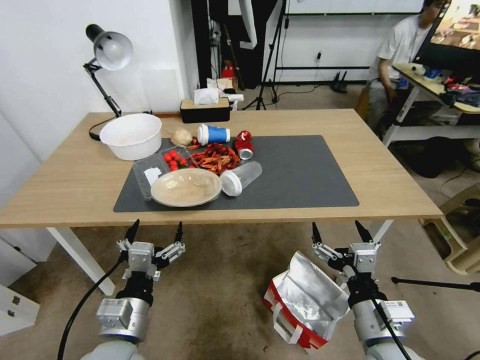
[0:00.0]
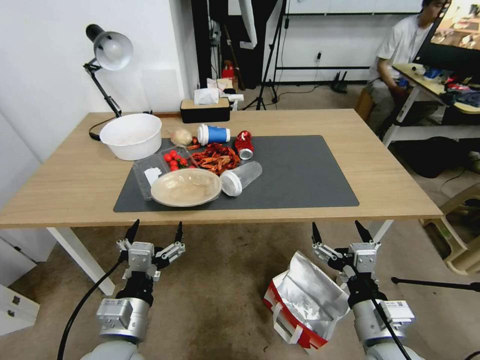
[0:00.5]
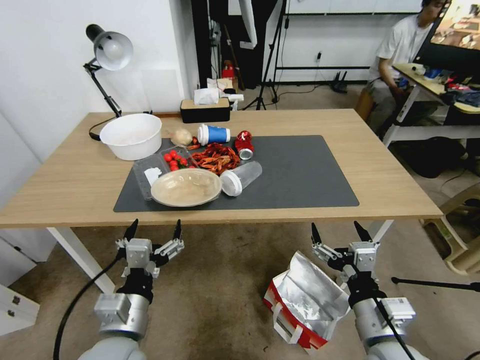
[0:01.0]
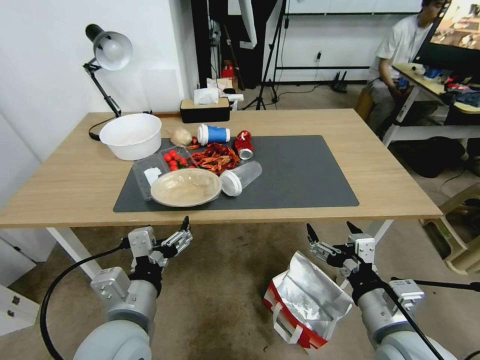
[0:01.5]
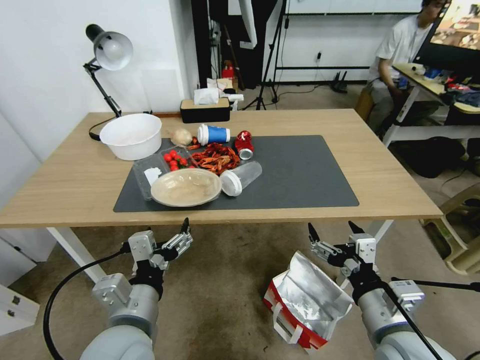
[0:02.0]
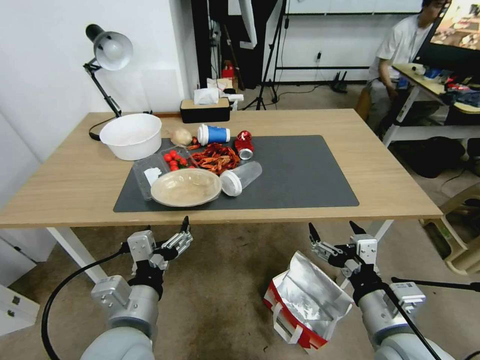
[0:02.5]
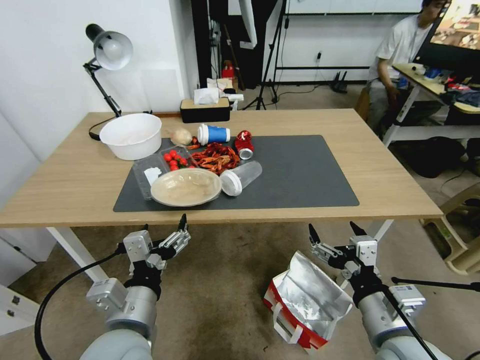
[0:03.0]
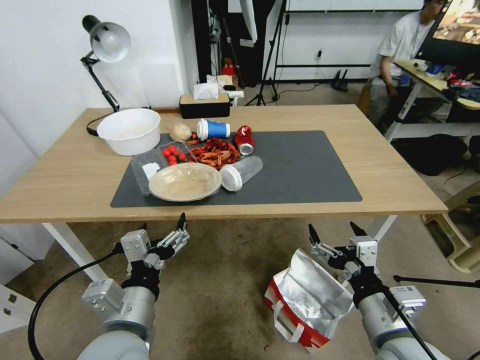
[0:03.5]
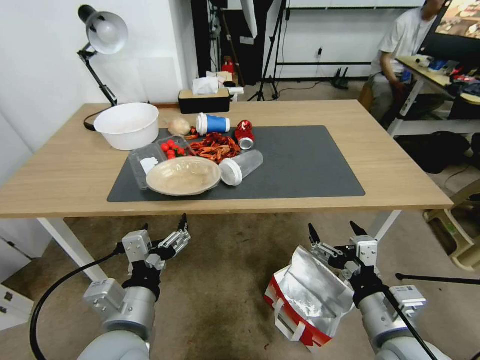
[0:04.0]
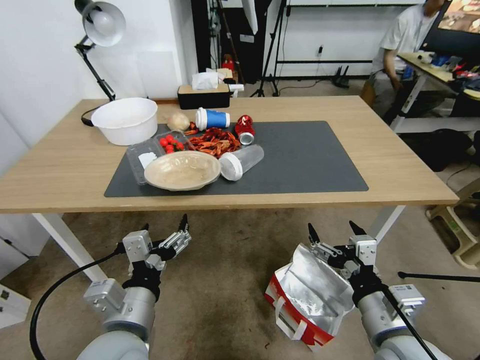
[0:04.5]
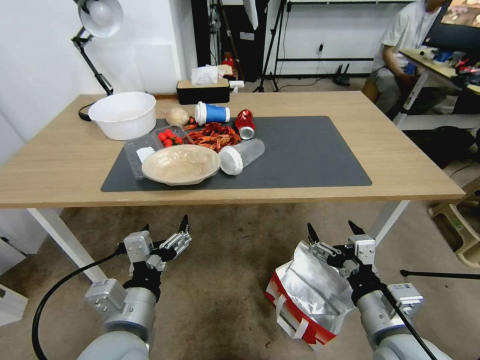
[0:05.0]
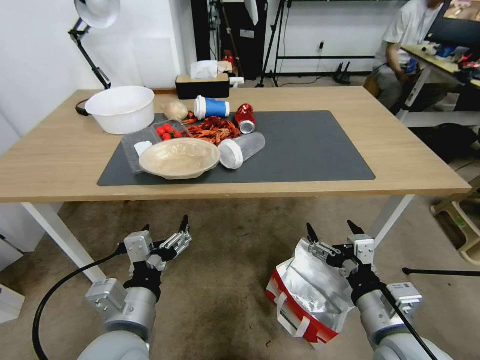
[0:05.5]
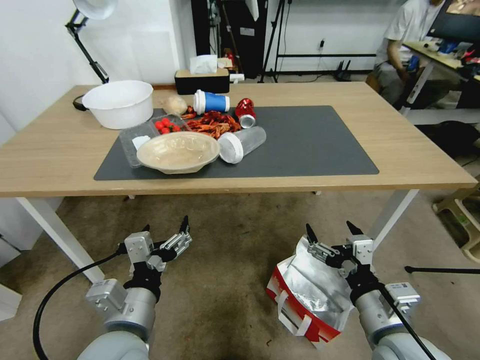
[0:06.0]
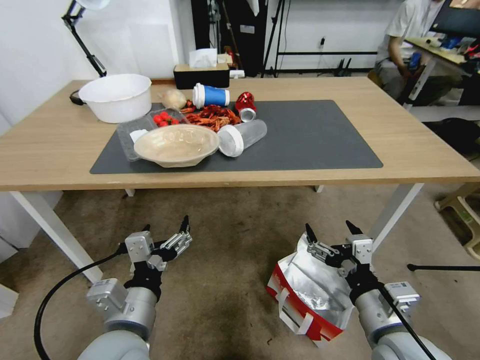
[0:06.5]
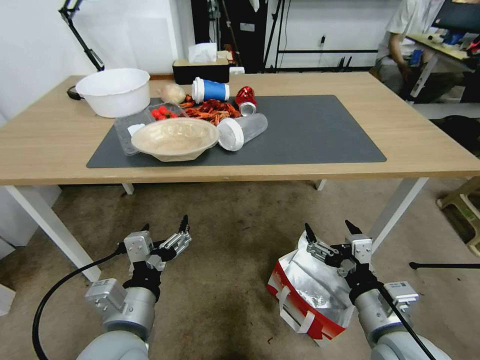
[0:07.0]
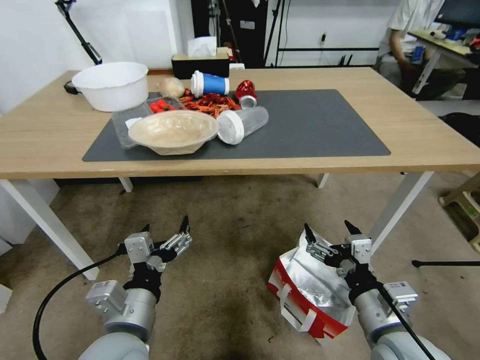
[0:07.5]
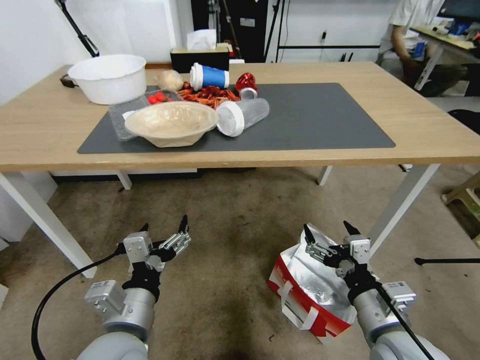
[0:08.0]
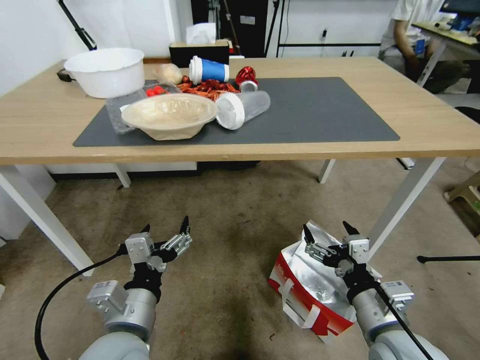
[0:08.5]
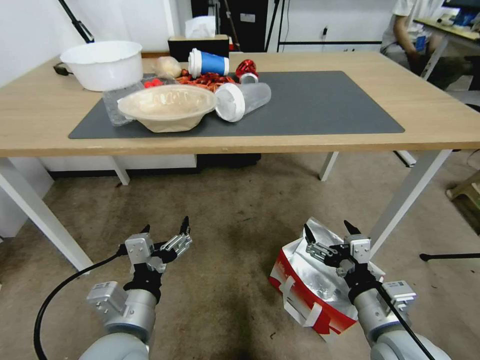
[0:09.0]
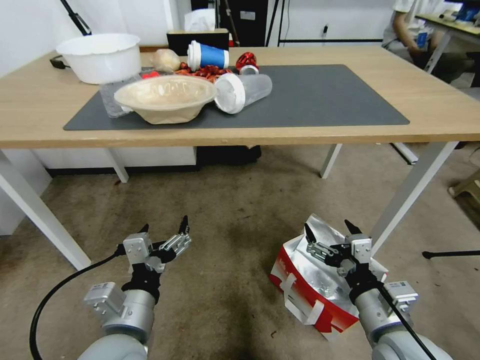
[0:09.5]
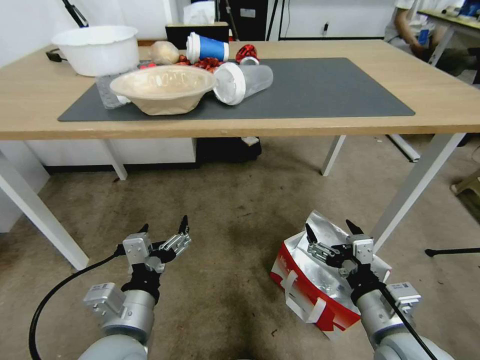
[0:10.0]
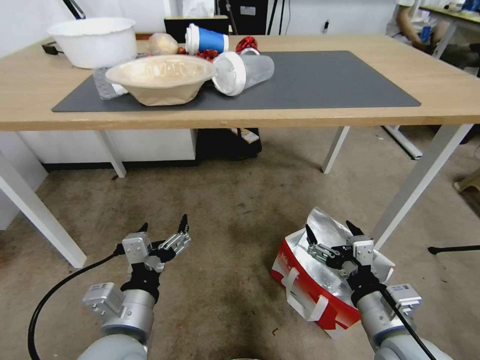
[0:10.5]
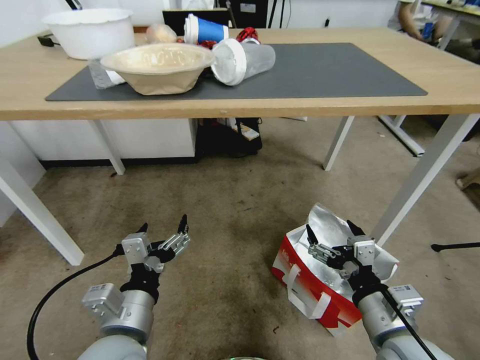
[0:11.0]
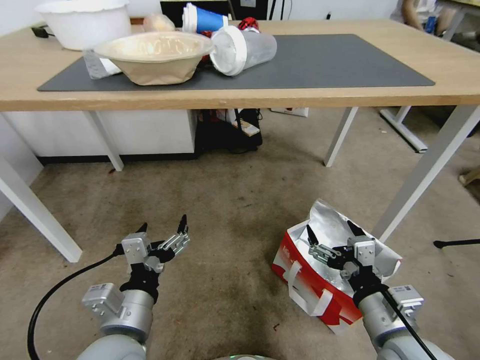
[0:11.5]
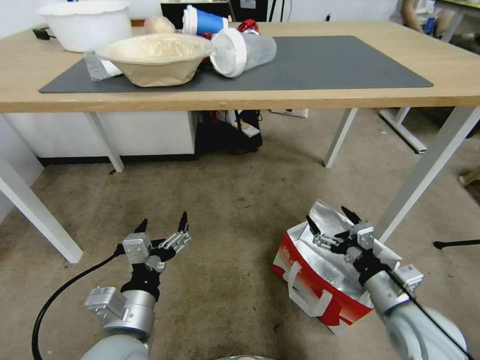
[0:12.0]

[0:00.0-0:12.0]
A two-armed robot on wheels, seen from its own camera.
Task of the whole recording: Pick up the food delivery bag from the floor and place it on the table.
0:10.0 to 0:12.0: The right gripper travels to the right by approximately 5 cm.

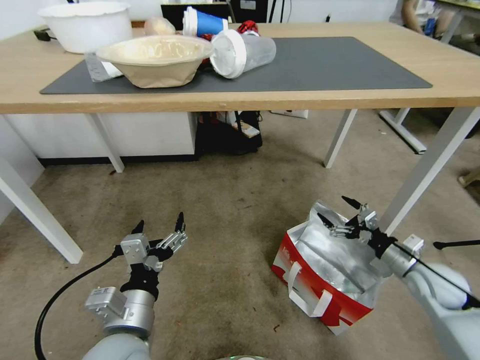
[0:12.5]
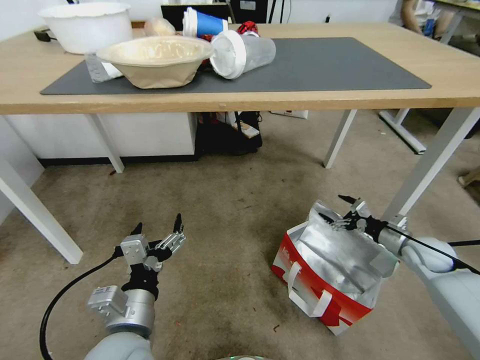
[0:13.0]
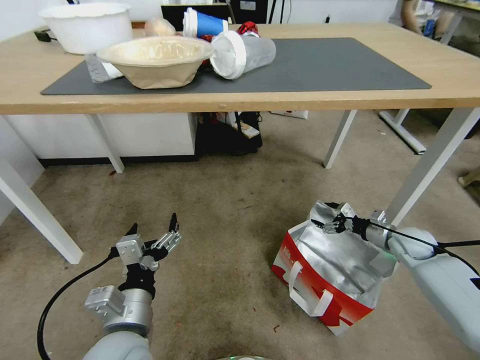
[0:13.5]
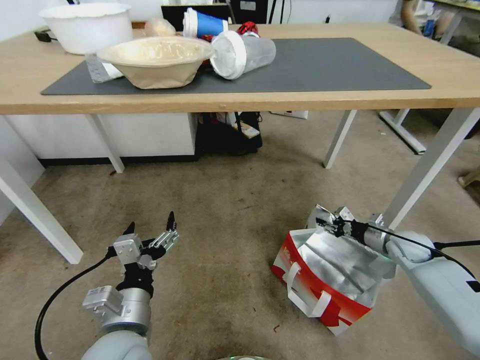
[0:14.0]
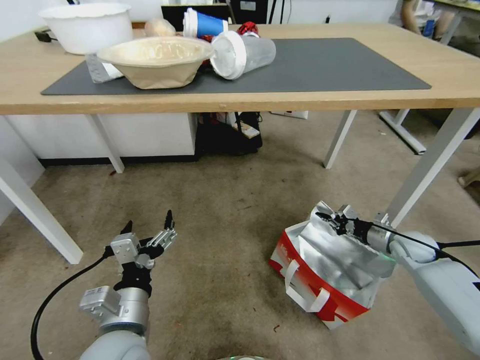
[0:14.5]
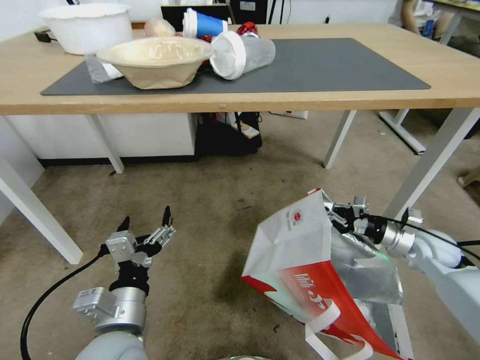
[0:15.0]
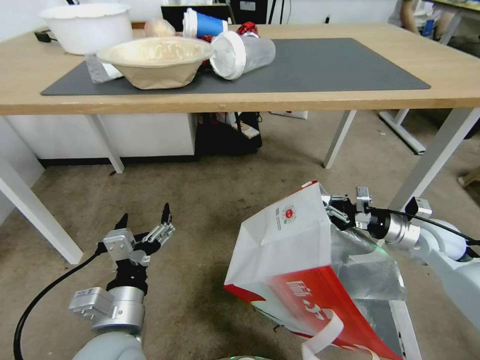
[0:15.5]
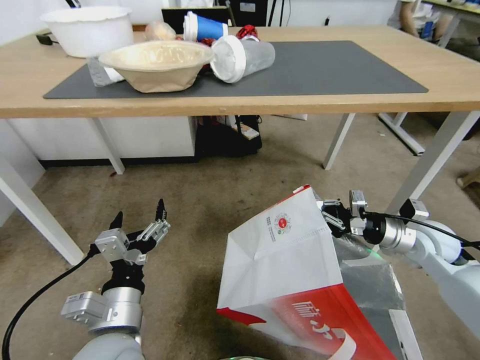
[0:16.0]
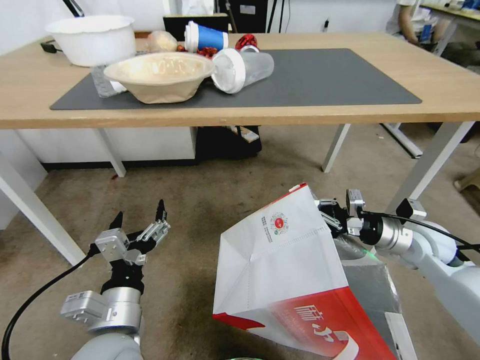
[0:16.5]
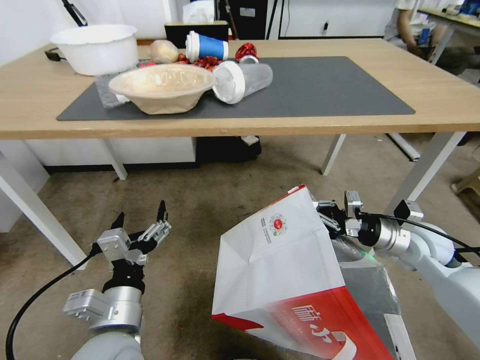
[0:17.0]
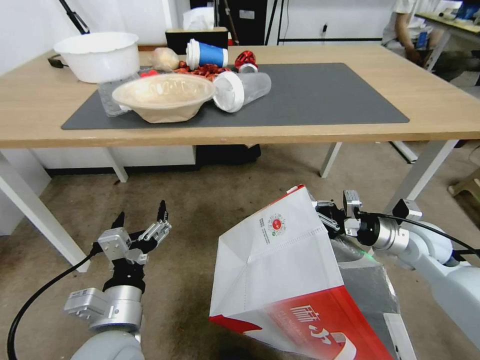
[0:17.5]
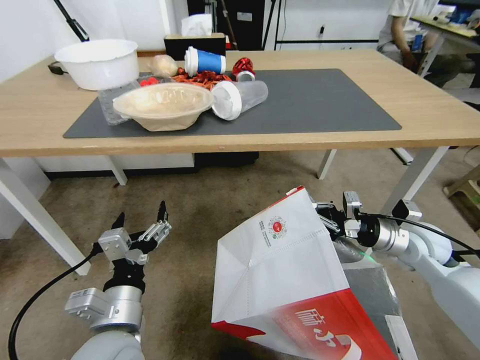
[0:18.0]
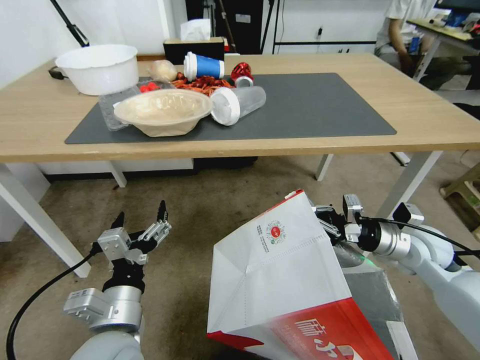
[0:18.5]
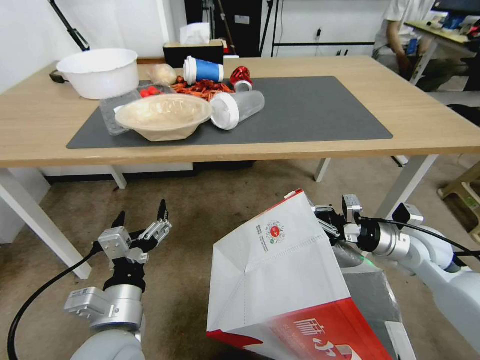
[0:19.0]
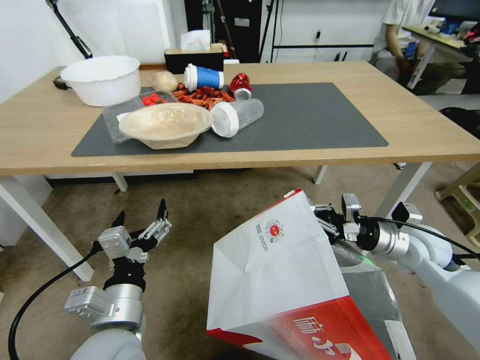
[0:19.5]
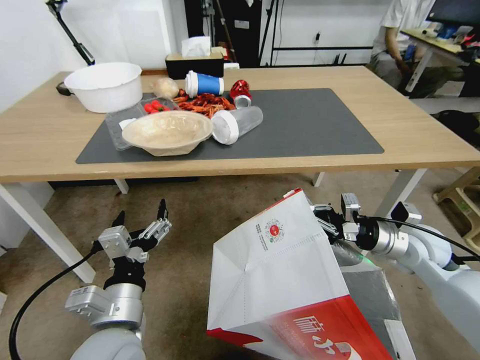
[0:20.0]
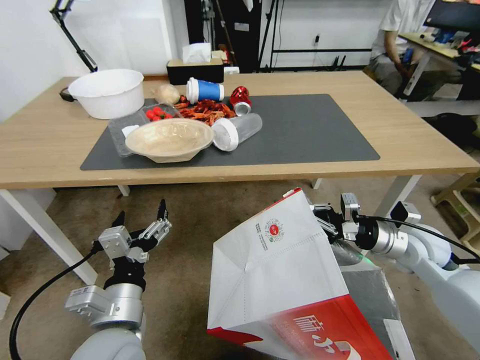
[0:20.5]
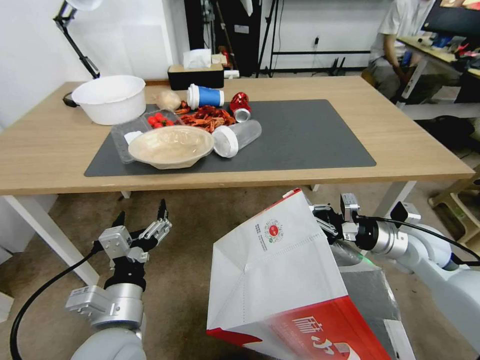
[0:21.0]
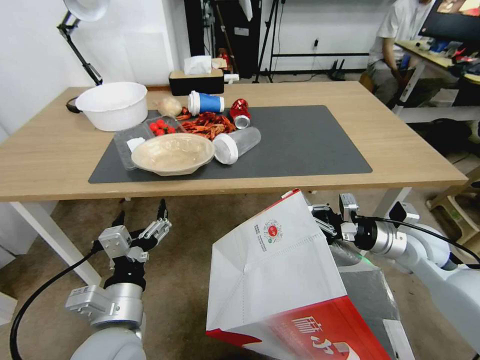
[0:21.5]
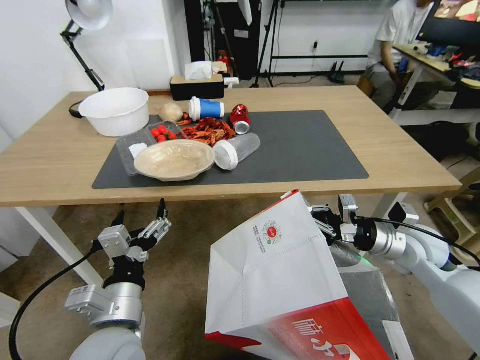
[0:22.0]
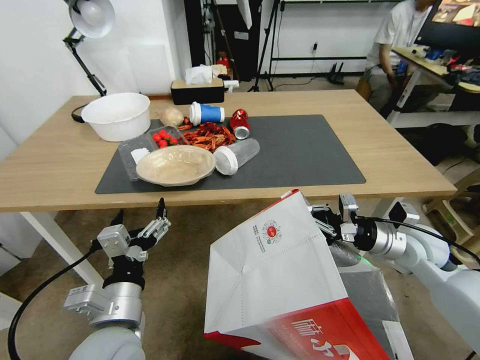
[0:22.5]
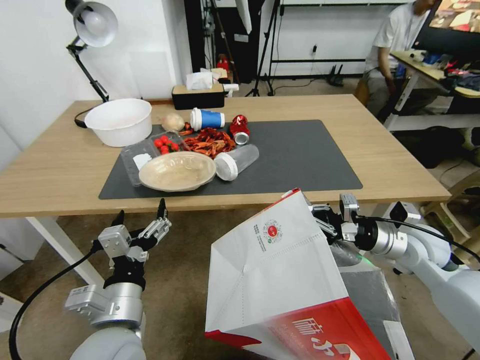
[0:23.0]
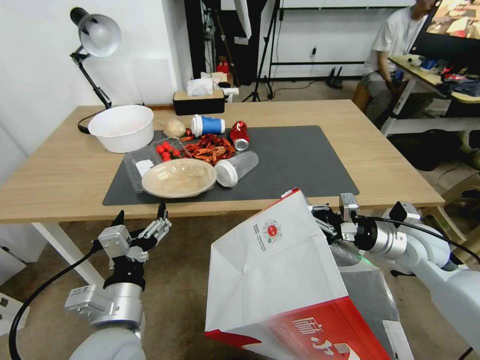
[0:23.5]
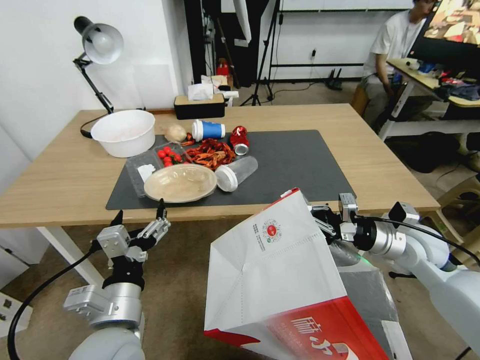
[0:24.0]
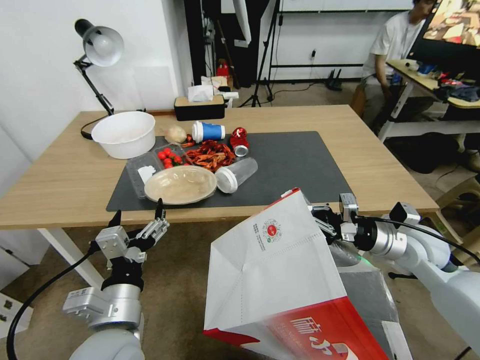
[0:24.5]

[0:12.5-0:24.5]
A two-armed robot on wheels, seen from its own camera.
Task of the whole recording: Pick up the food delivery bag from the floor and place it on the table.
0:12.5 to 0:14.5: The right gripper goes some 10 cm forward, and closes up.
0:14.5 to 0:16.5: The right gripper is displaced upward and to the left by about 15 cm.

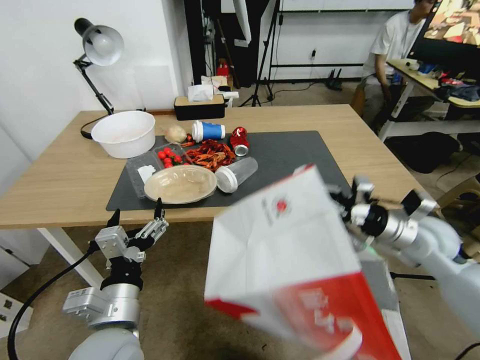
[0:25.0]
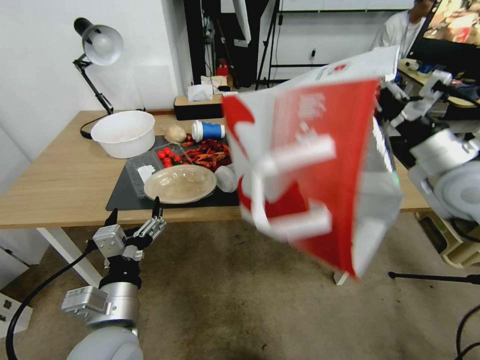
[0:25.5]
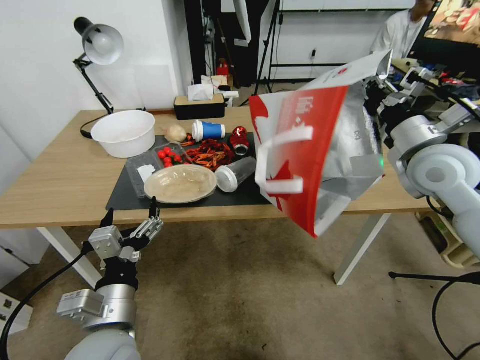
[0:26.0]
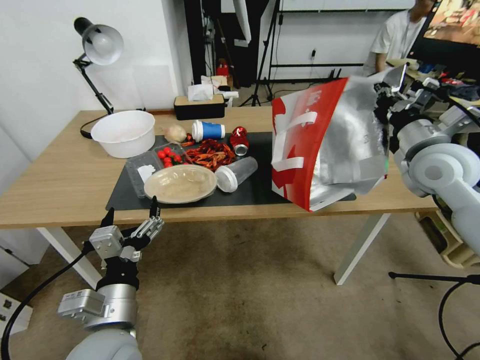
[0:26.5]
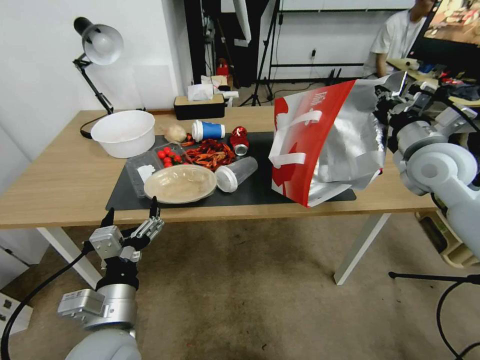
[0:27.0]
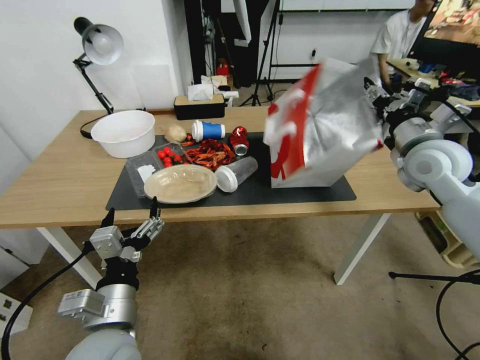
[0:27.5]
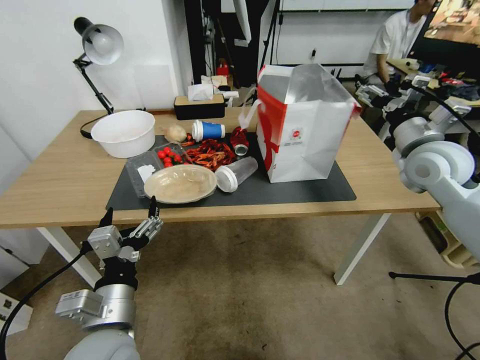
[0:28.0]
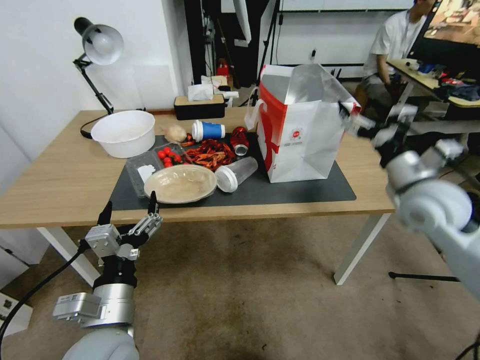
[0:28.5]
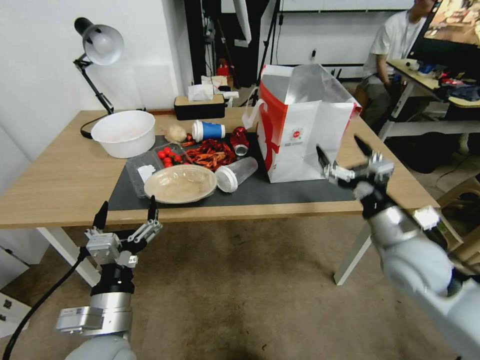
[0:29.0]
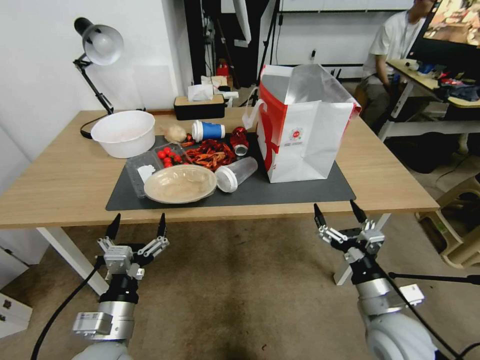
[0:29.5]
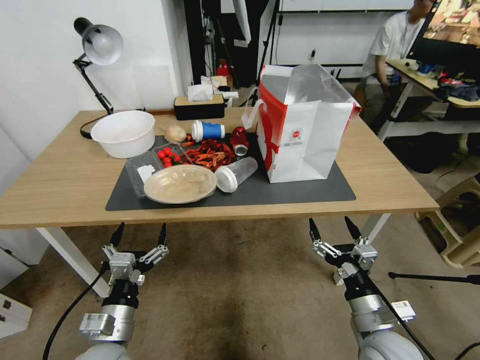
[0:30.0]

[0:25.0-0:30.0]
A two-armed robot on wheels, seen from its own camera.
Task of the whole recording: Pick up the food delivery bag from the floor and place it on the table.
0:25.0 to 0:27.5: The right gripper is displaced upward and forward by some 15 cm, and opens up.
0:27.5 to 0:30.0: The right gripper shifts about 35 cm backward and downward, and opens; the left gripper is displaced downward by roughly 10 cm.
